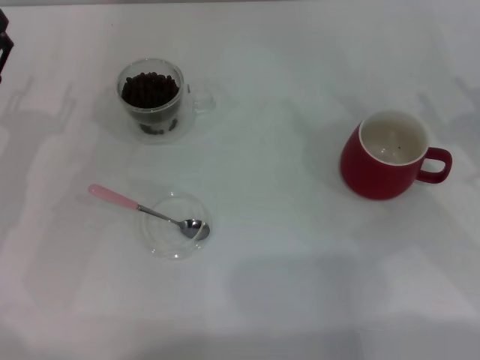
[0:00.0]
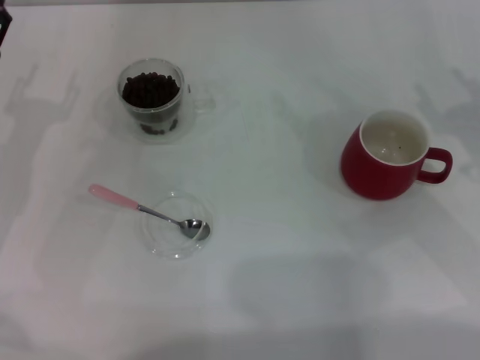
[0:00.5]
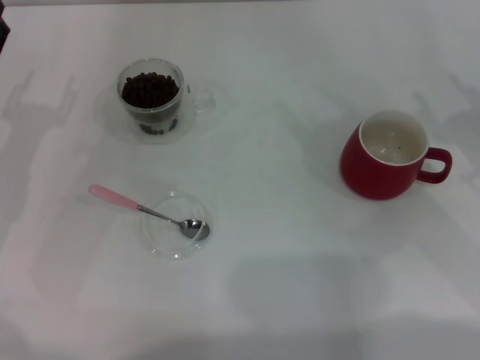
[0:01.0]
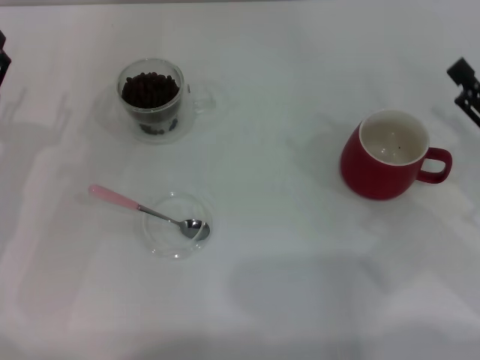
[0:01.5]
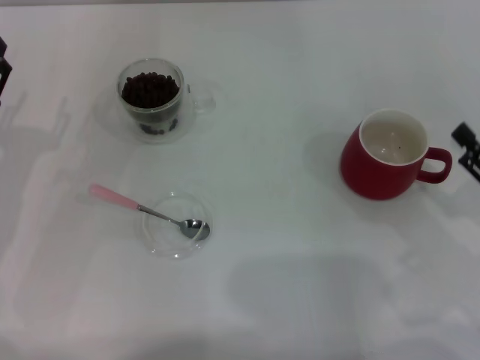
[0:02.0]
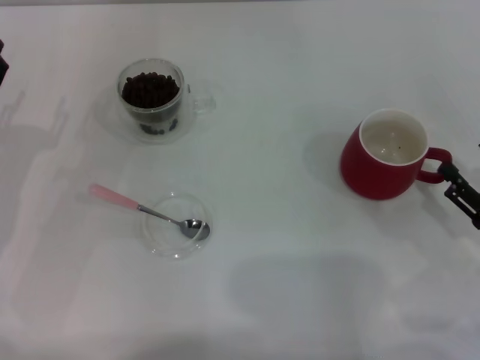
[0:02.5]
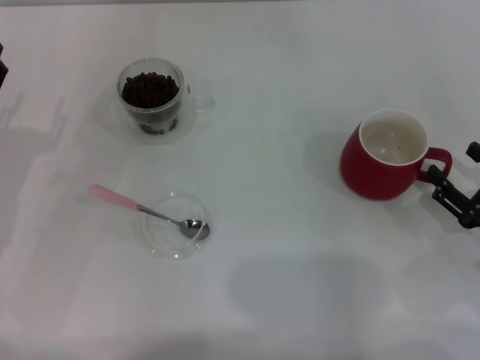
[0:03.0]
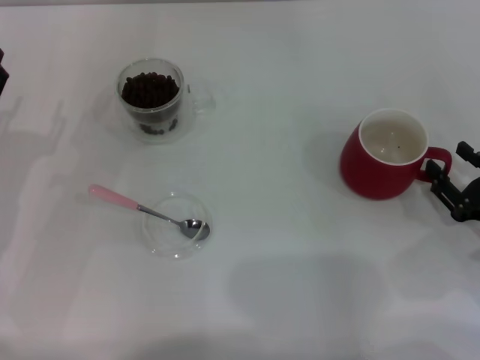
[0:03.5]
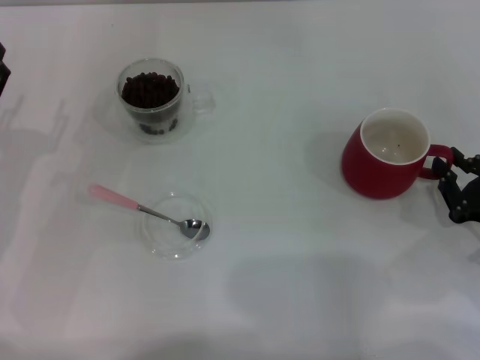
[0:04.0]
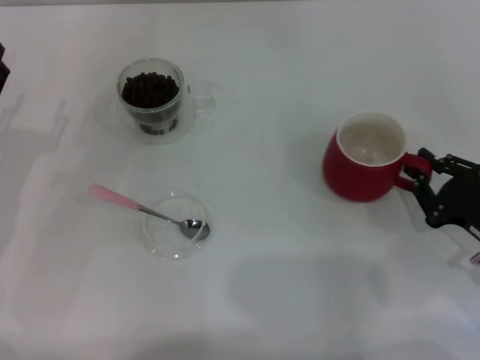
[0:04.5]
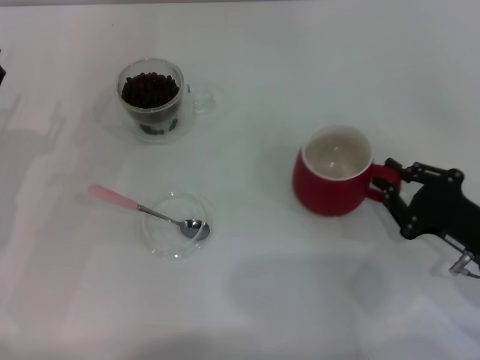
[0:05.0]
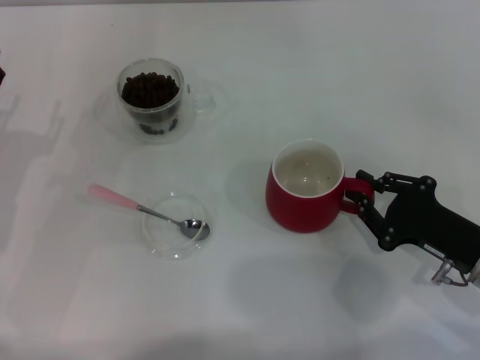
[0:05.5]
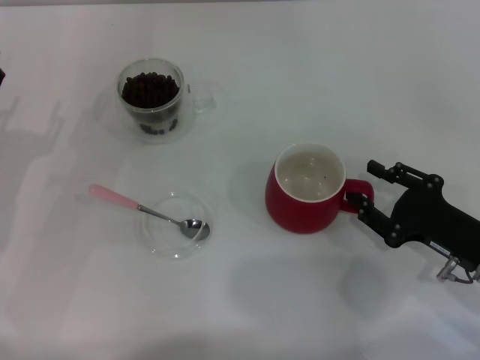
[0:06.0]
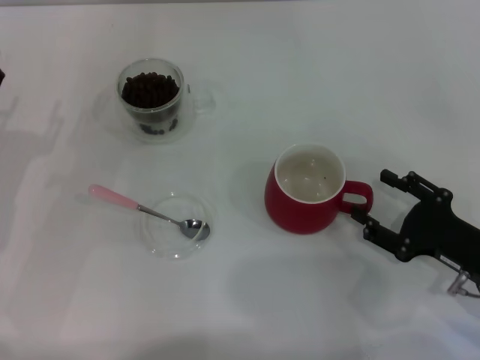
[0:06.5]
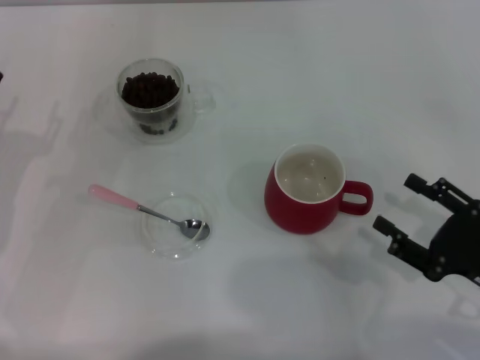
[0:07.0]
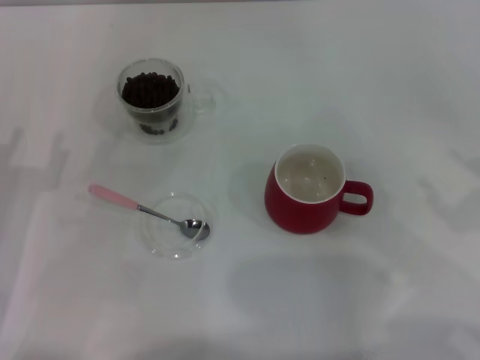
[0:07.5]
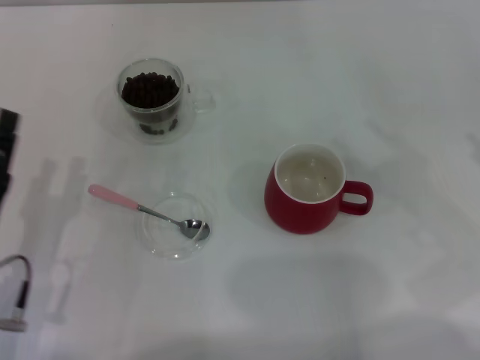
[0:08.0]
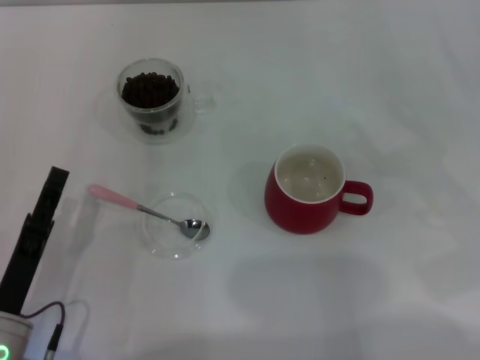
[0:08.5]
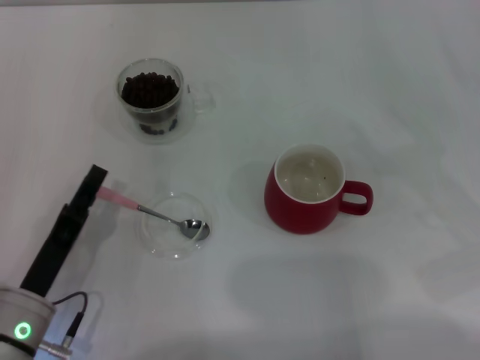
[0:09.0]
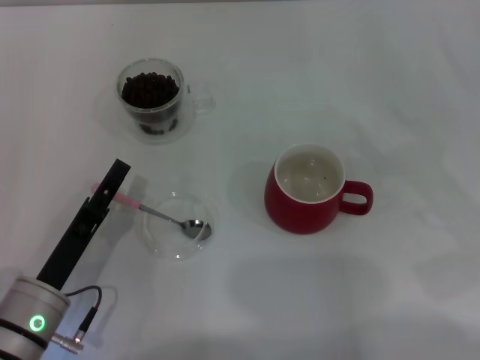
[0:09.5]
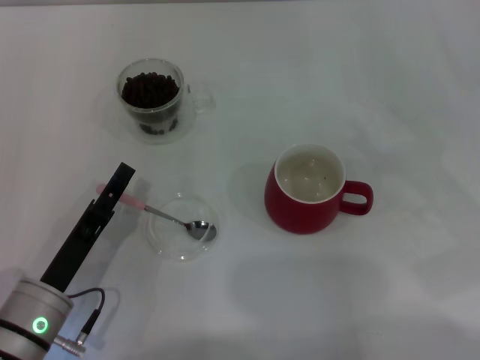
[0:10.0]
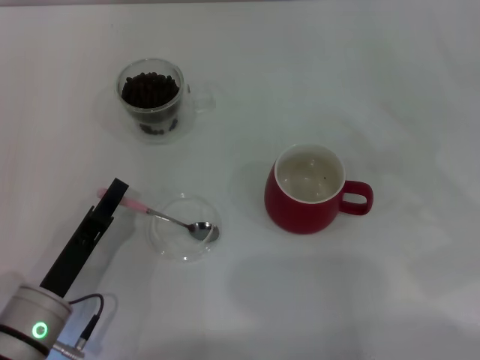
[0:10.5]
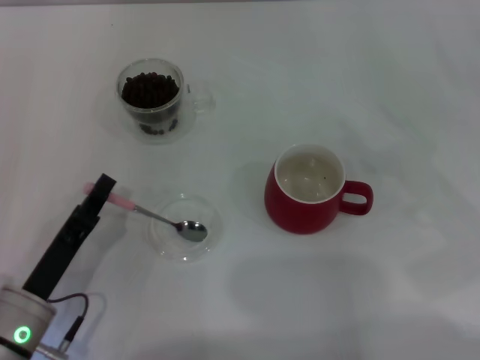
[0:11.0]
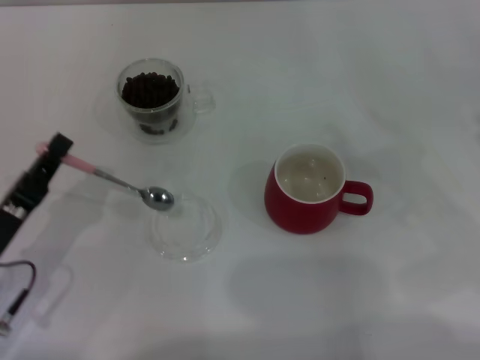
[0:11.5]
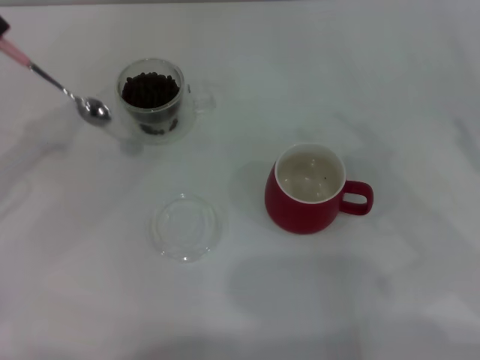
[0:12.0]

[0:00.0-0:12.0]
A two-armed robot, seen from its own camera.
Task of the whole recording: Use a pink spoon to take out the coffee beans from the glass and pour them into the red cup.
Step, 0:00.0 to 0:07.0: Move the cup to the center of view with the left gripper.
Step, 0:07.5 to 0:11.0: Pick up the spoon with the right gripper.
0:02.0 to 0:04.0: The right gripper closes.
0:06.0 to 0:08.0: The left gripper travels backward and to the right by some 10 cm; the right gripper travels to the right and upward by approximately 15 cm, and opens its fingers.
0:08.0 to 0:10.0: The left gripper ends up roughly 5 cm from where it was.
0:10.0 to 0:12.0: The left gripper is displaced to the left, upward and forward by roughly 20 cm, and closes up.

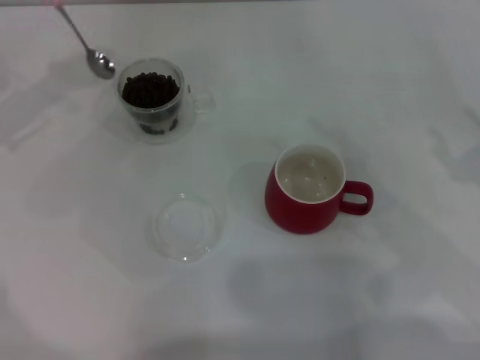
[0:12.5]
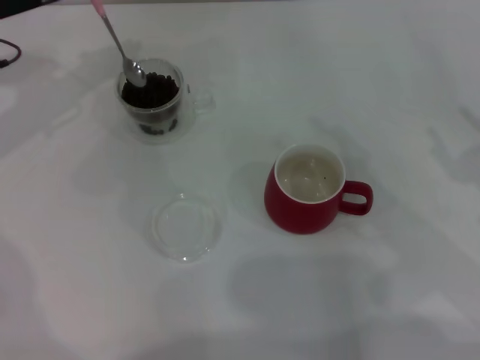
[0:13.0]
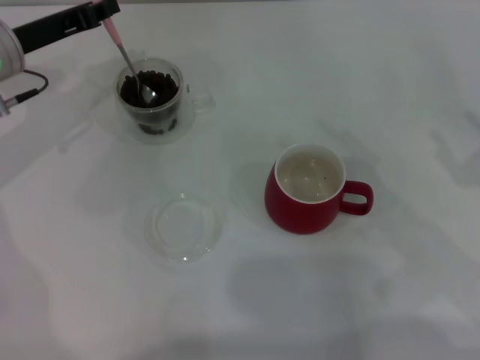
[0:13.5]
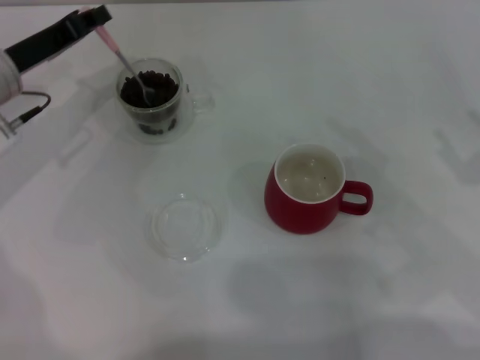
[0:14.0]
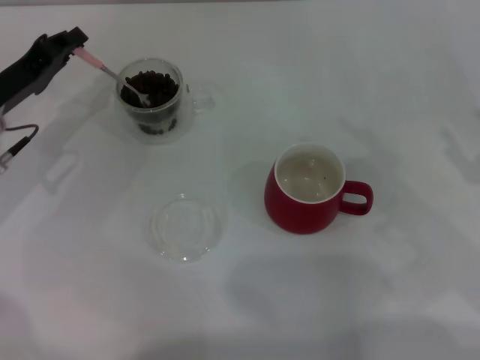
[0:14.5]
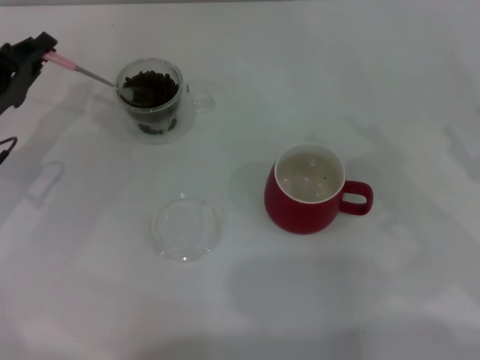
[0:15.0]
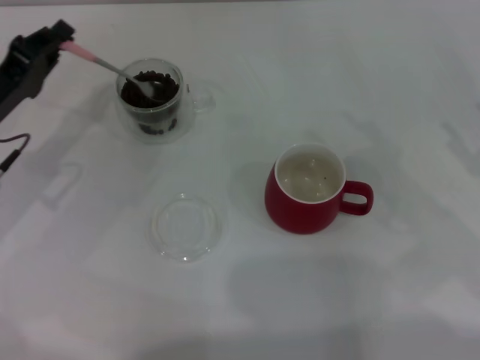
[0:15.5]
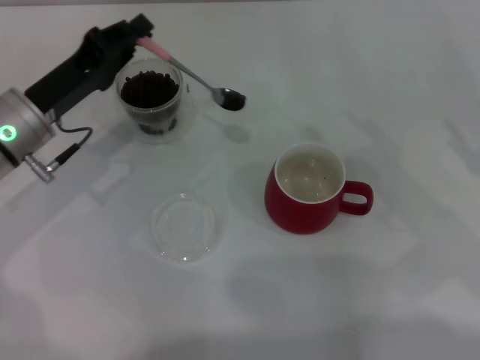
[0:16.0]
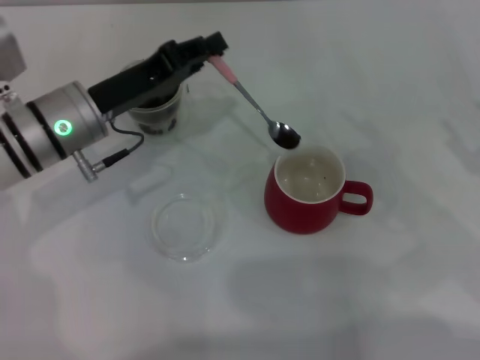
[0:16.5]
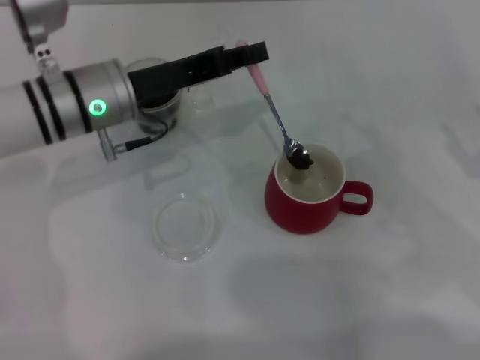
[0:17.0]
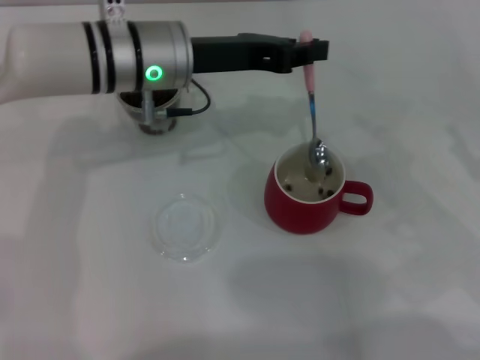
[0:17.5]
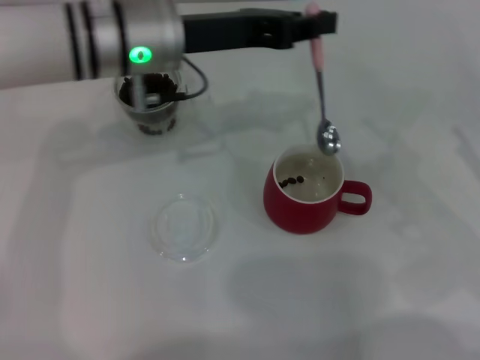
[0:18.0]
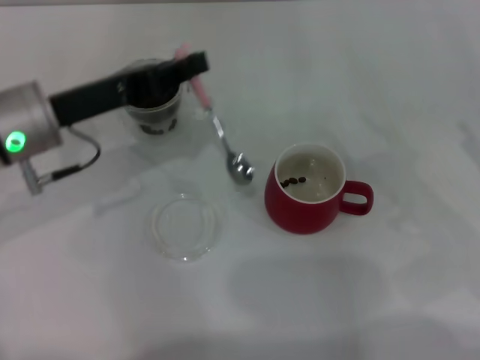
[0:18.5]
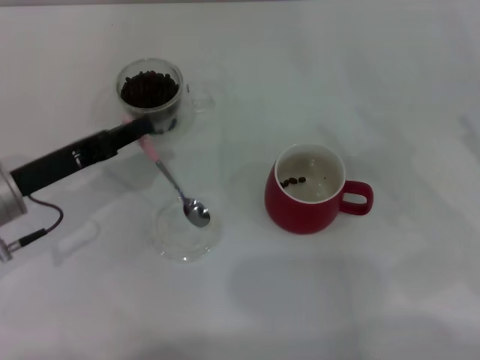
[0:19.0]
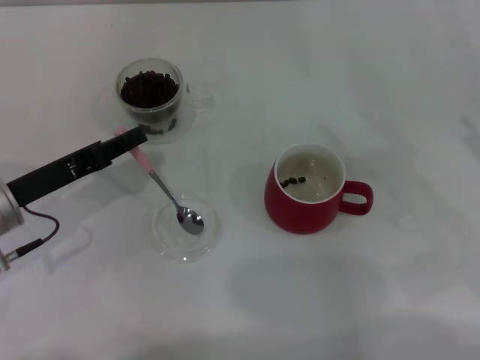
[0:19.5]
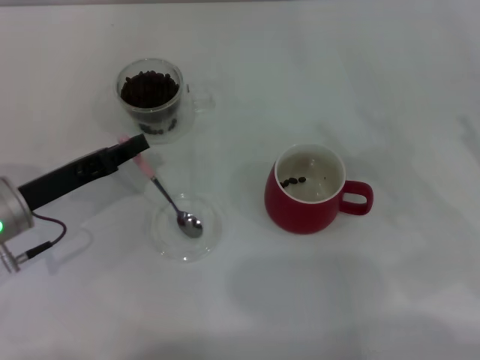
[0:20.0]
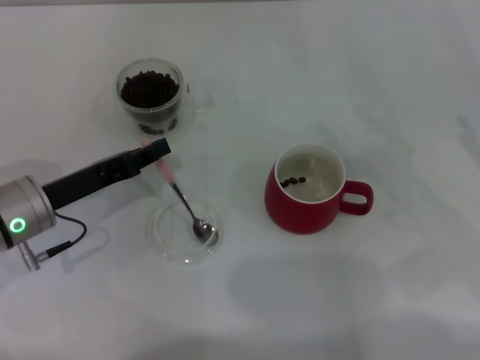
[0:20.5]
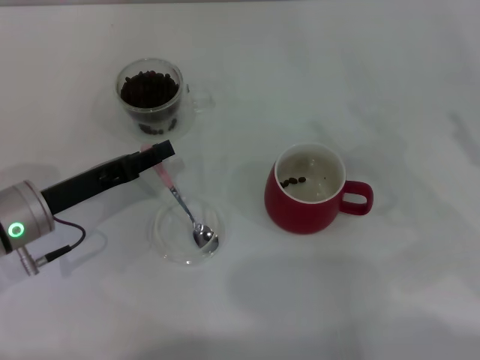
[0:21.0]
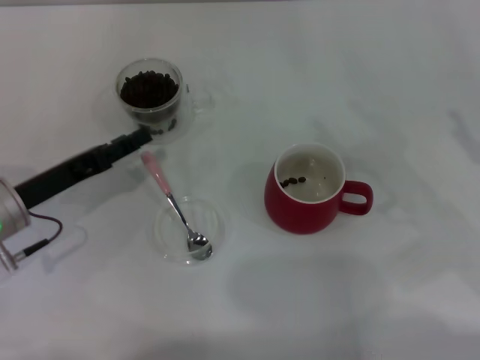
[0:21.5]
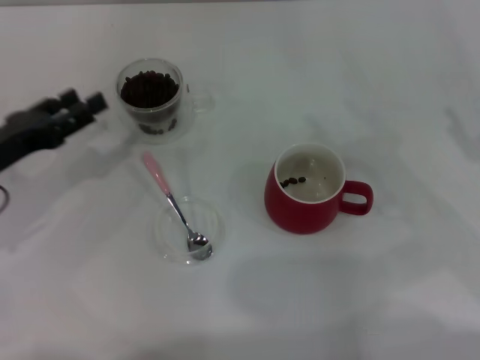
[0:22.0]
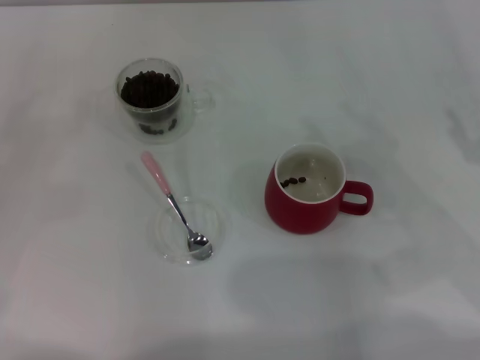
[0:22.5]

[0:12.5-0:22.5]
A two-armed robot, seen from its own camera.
Task of the whole recording: Use a pink spoon to take out the coffee beans from the glass and pour them into the red cup.
0:12.5 to 0:14.5: The left gripper goes roughly 10 cm downward.
0:14.5 to 0:16.5: The left gripper is displaced to the right by some 10 cm.
0:16.5 to 0:18.5: The left gripper moves some 10 cm to the right and comes back.
0:18.5 to 0:20.5: The left gripper travels downward by roughly 10 cm.
0:20.5 to 0:22.5: The left gripper moves to the left, about 15 cm, and opens up.
